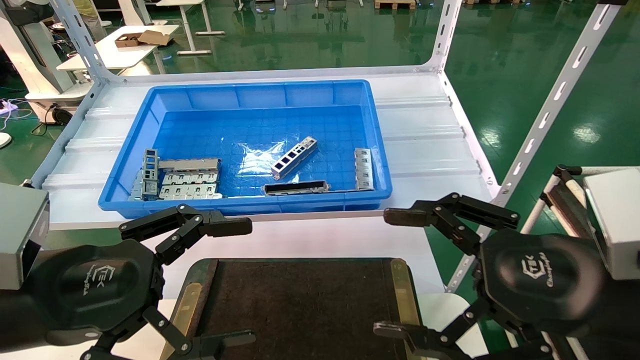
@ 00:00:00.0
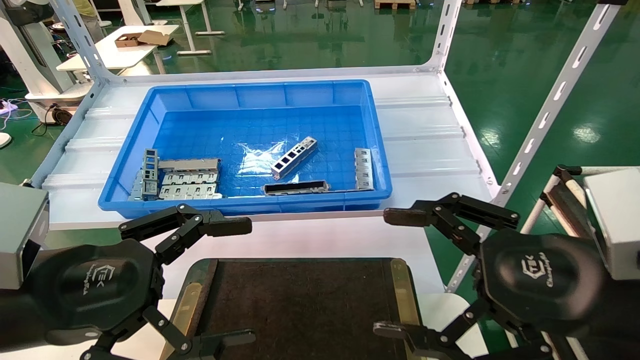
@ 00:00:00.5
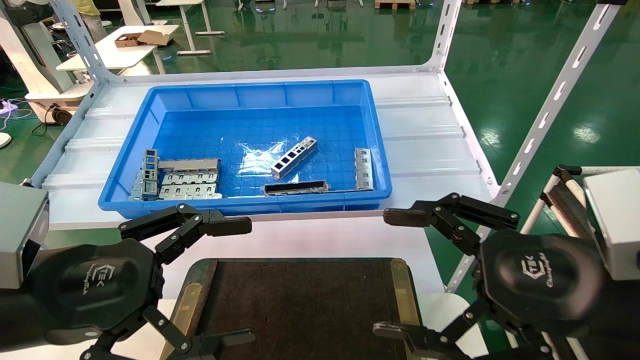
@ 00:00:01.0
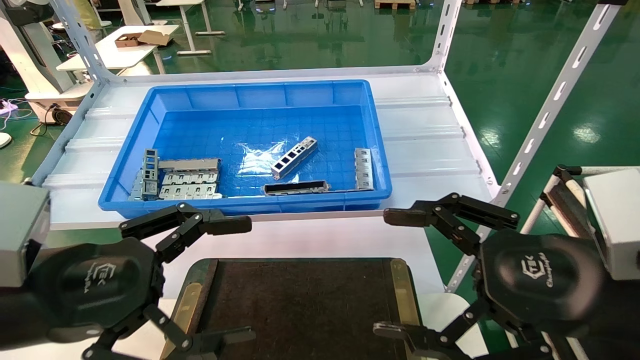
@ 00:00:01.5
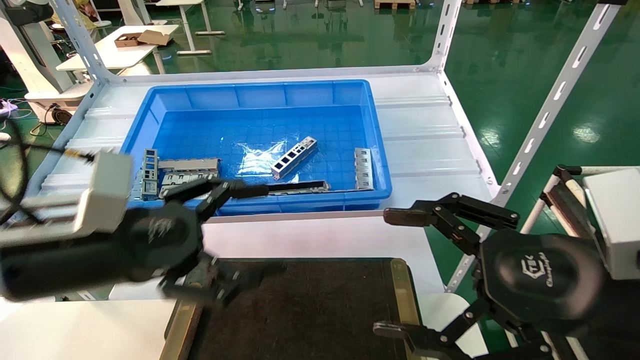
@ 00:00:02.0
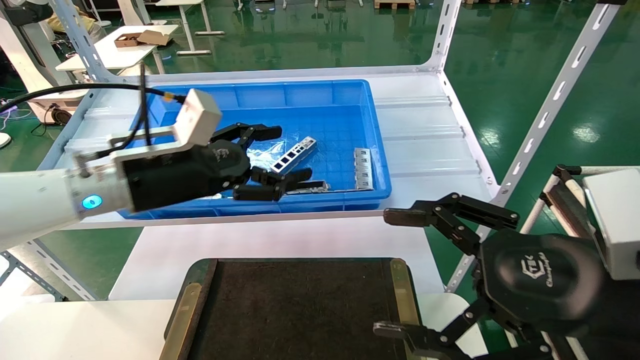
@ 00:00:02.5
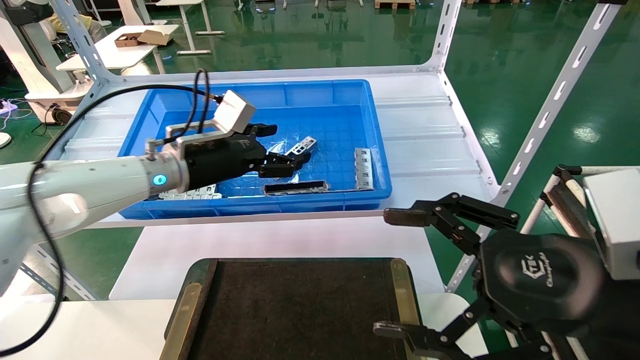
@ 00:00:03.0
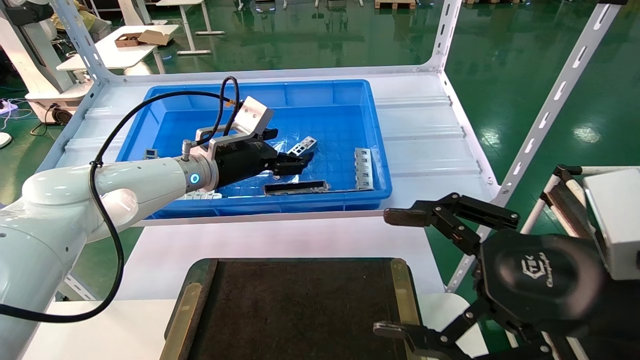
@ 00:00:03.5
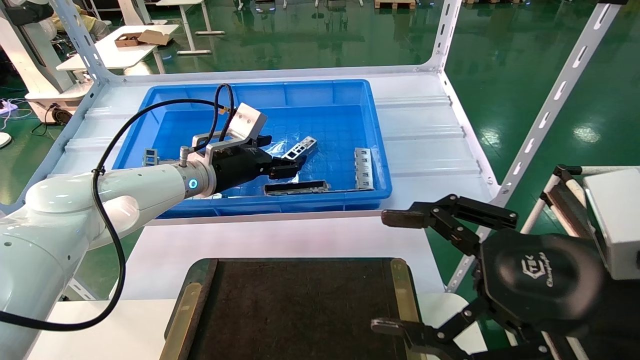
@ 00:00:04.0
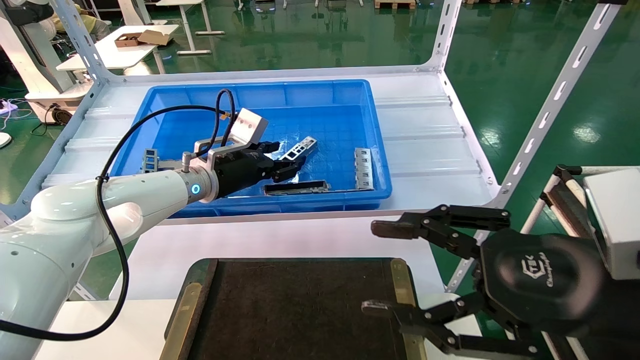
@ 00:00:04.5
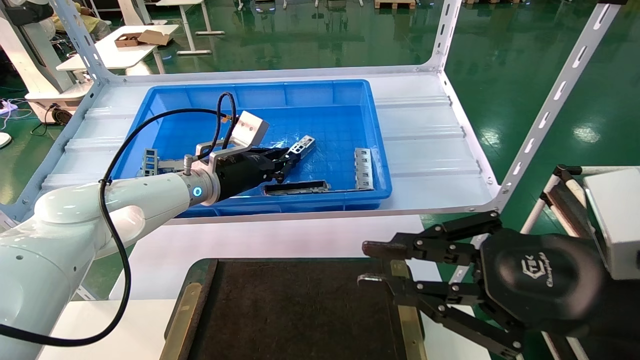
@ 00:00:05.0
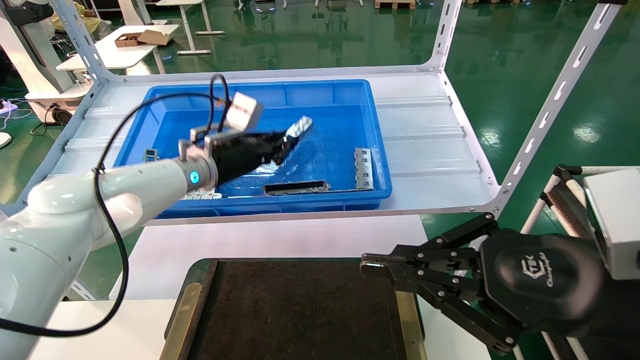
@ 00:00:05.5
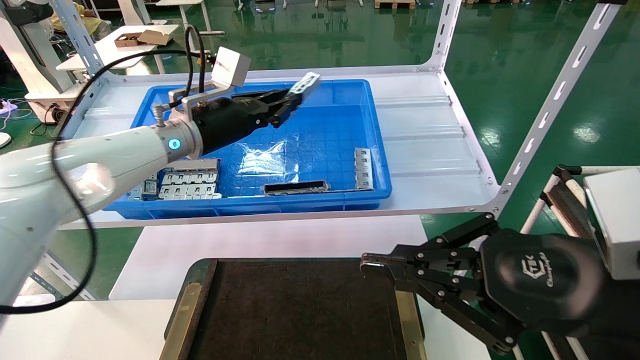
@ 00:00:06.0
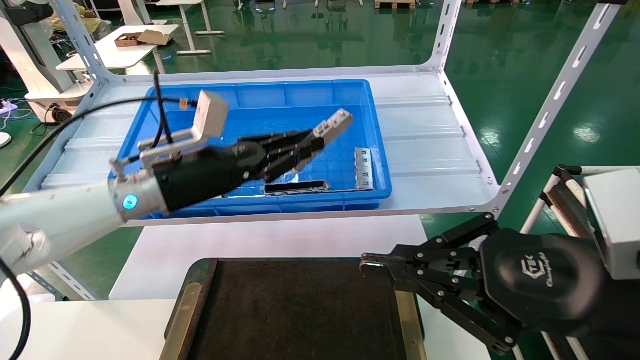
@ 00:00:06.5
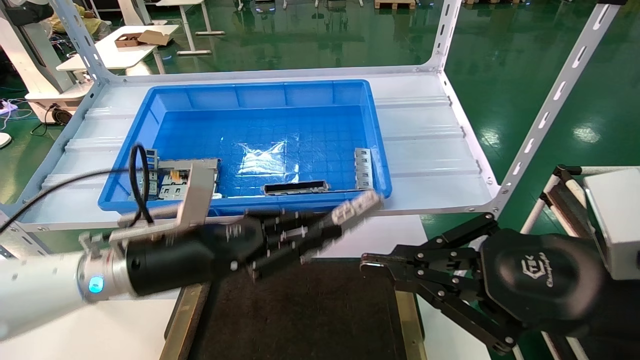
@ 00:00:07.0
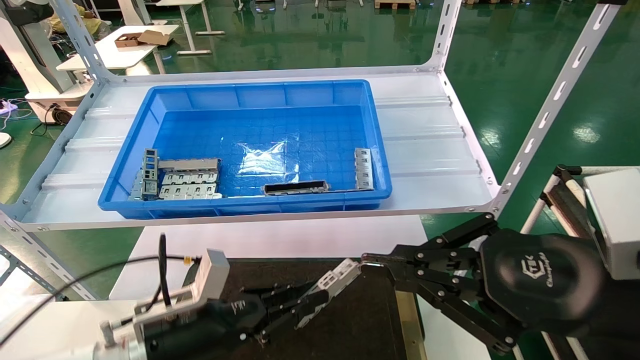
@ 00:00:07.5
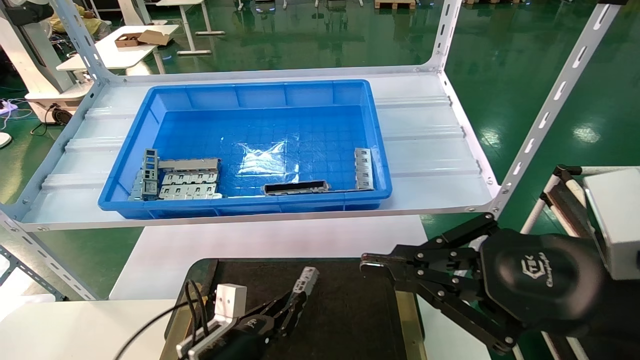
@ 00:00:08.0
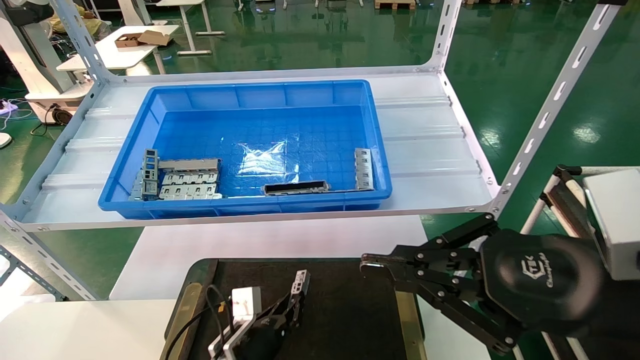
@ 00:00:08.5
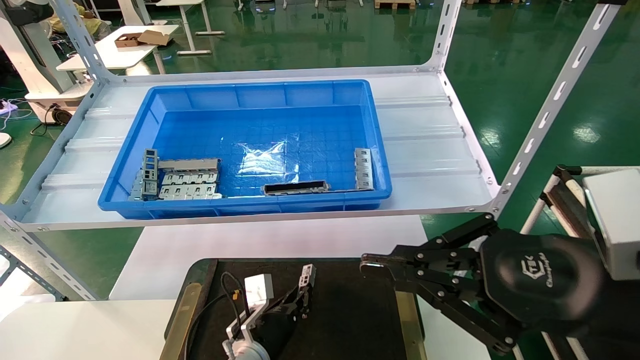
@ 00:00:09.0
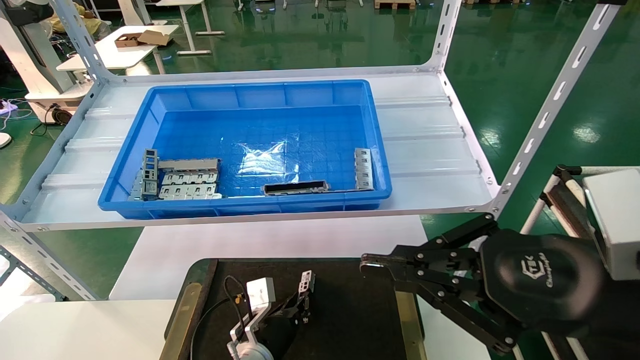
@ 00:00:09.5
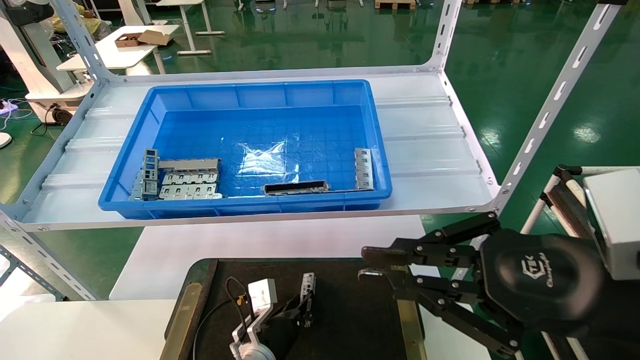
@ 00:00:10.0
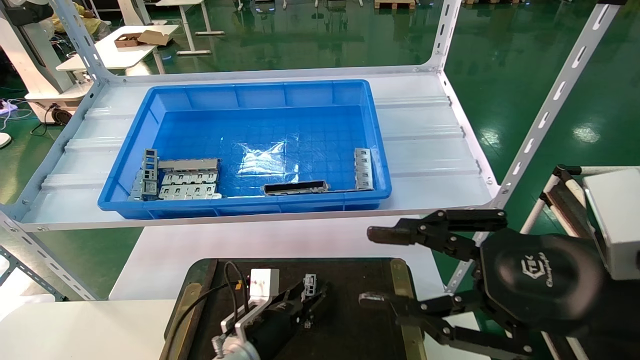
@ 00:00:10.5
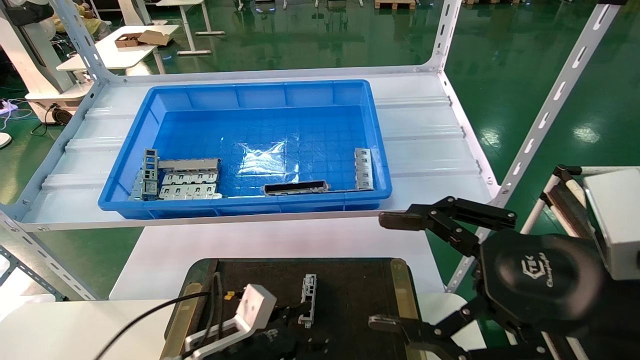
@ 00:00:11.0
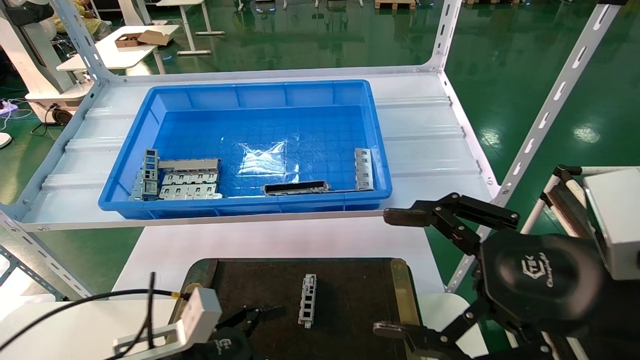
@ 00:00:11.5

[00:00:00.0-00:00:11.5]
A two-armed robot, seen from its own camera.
Task of the whole recording: Grasp the part with one hand and place it on the black container.
Step, 00:00:02.0 to 00:00:05.5: Pick up the front USB bracket from the feeding area.
Step, 00:00:06.0 to 00:00:10.0: Place the front USB bracket into the box.
00:00:00.0 to 00:00:02.0: The left gripper heads forward, covering about 5 cm.
00:00:02.0 to 00:00:04.0: The left gripper goes some 25 cm forward.
00:00:04.0 to 00:00:06.0: The right gripper closes. Meanwhile the left gripper is displaced upward by approximately 5 cm, and closes up.
00:00:06.0 to 00:00:07.5: The left gripper shifts approximately 30 cm downward and backward.
00:00:07.5 to 00:00:09.5: The left gripper moves downward, to the right and forward, roughly 20 cm.
00:00:09.5 to 00:00:11.5: The left gripper heads backward, to the left and upward, covering roughly 20 cm, and opens up; the right gripper opens its fingers.
